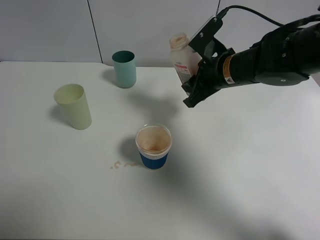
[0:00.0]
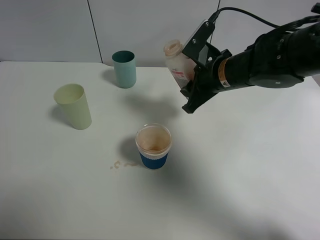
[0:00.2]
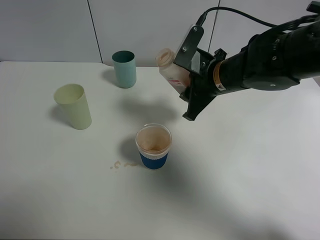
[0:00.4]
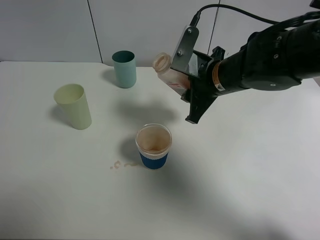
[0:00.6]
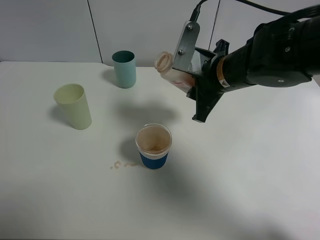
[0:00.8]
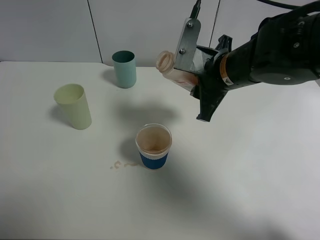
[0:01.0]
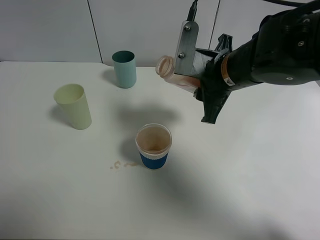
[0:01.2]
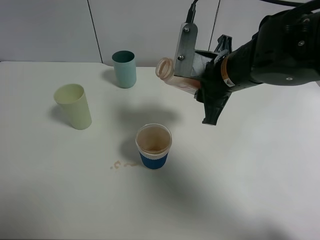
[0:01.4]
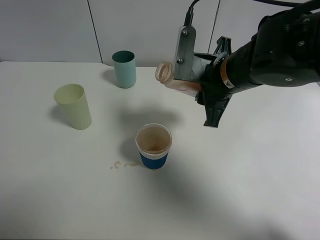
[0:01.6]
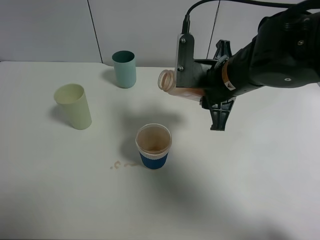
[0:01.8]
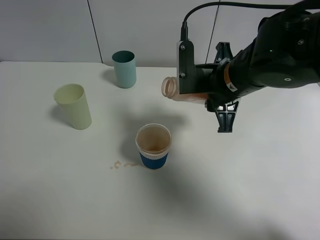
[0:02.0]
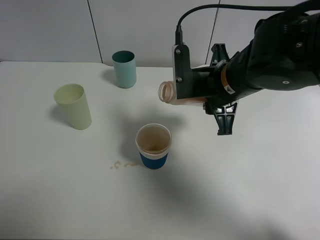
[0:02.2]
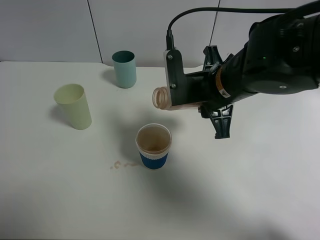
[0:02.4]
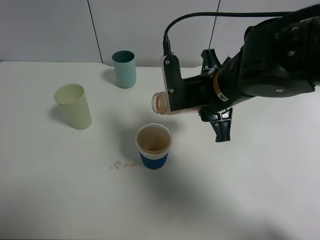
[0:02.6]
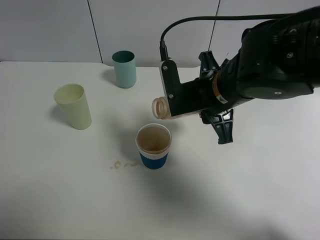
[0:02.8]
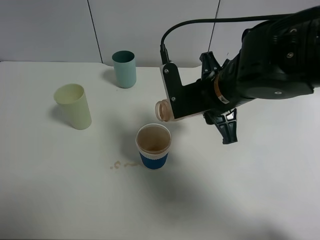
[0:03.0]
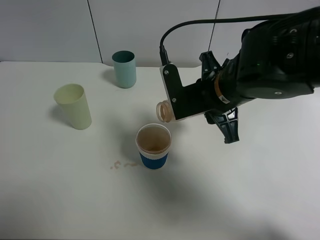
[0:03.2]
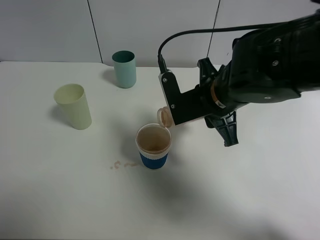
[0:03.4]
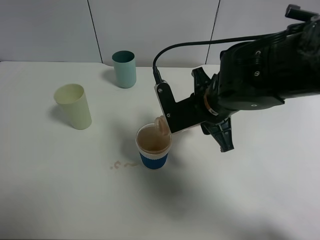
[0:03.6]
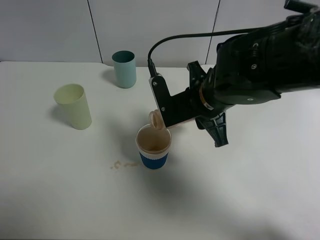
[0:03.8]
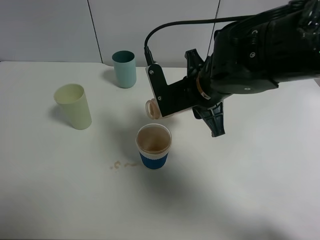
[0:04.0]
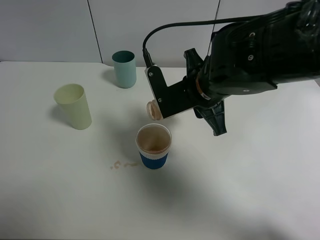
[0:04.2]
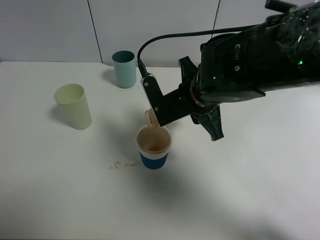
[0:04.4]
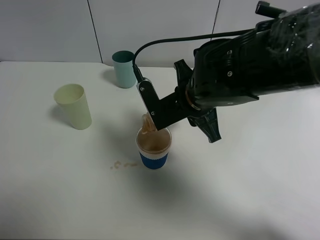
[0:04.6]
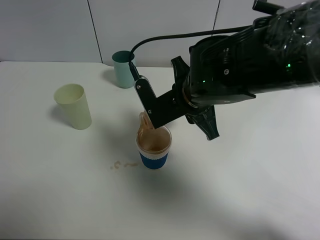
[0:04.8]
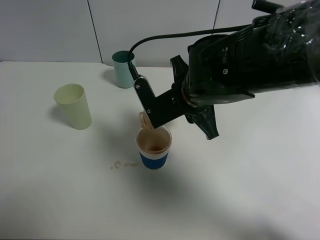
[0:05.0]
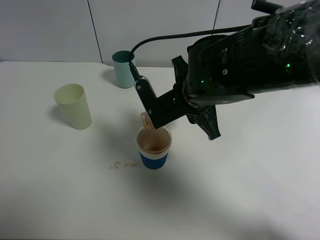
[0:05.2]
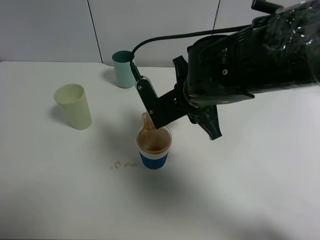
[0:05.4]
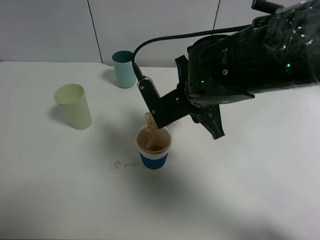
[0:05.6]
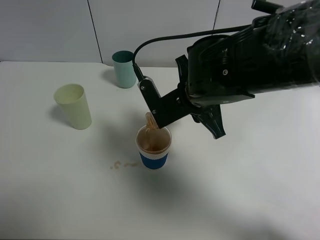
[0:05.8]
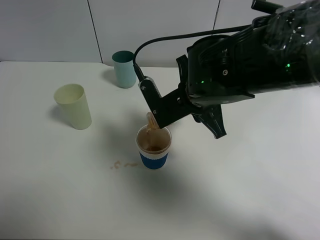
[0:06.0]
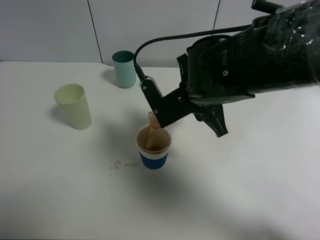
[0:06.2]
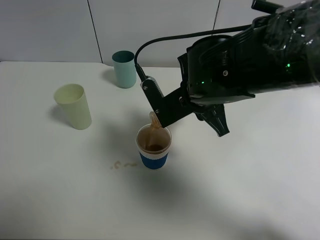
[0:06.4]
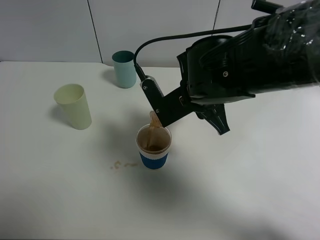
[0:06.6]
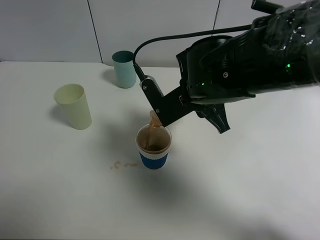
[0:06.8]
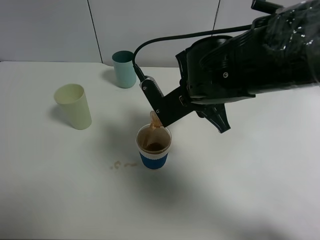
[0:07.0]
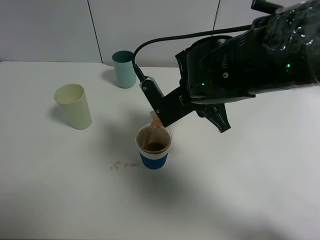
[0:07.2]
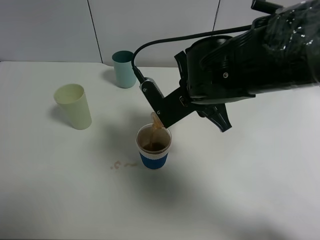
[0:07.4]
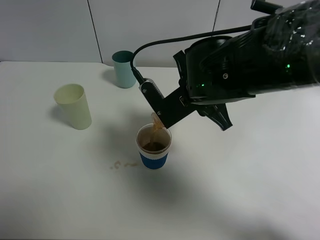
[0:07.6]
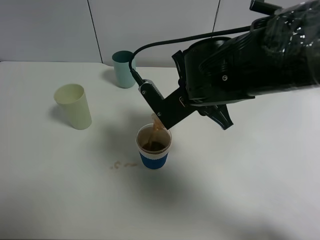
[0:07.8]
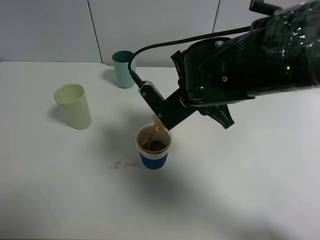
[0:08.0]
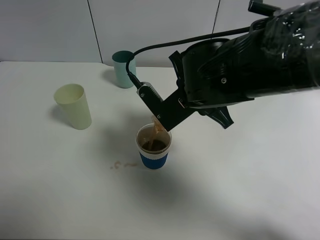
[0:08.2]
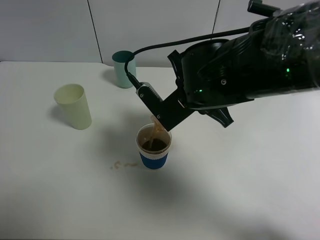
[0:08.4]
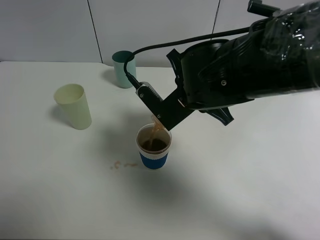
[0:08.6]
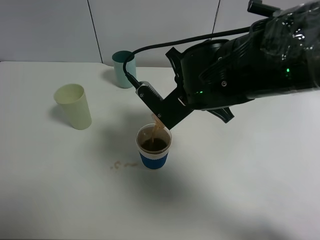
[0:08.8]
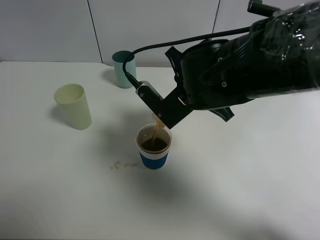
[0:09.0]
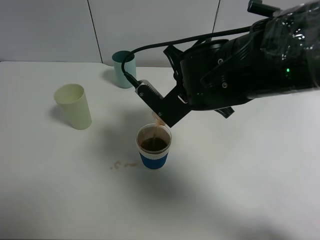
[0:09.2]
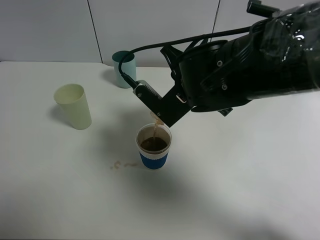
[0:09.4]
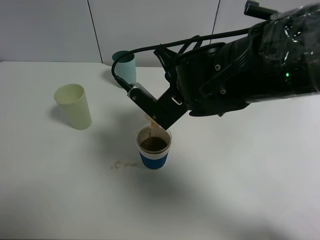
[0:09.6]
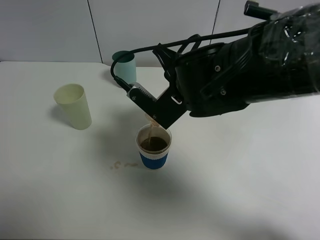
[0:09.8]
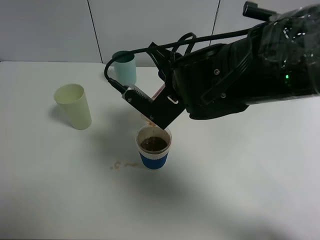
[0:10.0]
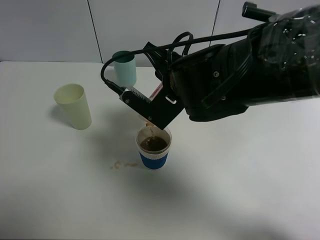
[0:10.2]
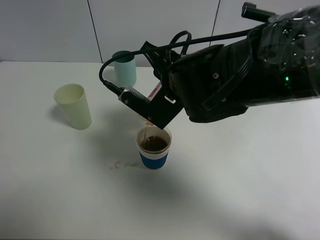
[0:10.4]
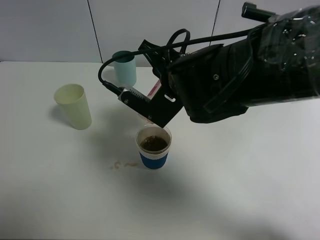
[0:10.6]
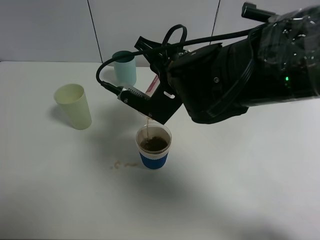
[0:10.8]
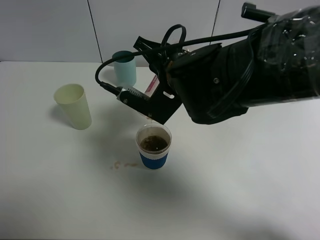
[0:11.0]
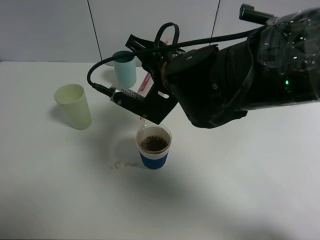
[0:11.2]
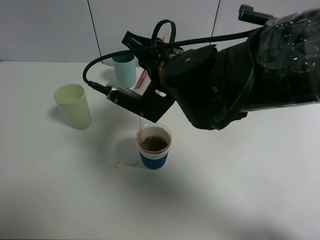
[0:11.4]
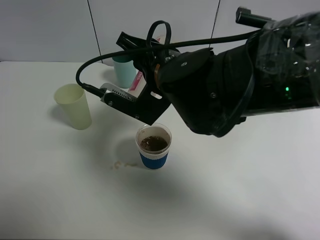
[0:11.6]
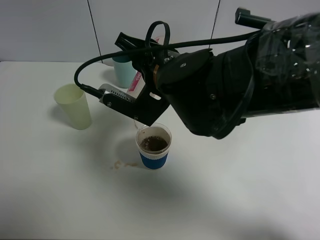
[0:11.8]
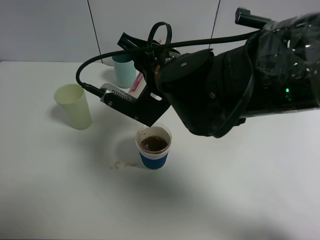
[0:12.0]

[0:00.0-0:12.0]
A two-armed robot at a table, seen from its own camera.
Task of the whole recording: use a clamp to hold the bottle of the drink, pour the beverage into a random cup, then clamp the cup containing the drink and pour the drink into another random cup.
0:00.0 to 0:01.6: The right gripper shifts some 5 cm backward.
0:03.0 to 0:06.0: There are only small adjustments of the grippers.
0:06.0 to 0:09.0: The grippers move only a little.
0:09.0 to 0:10.4: The grippers move only a little.
0:10.4 to 0:12.0: The grippers make only small movements.

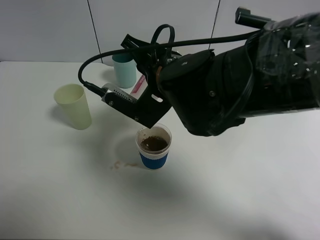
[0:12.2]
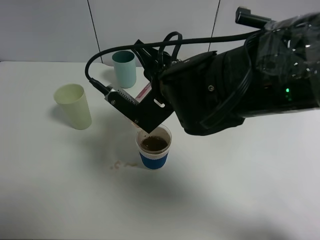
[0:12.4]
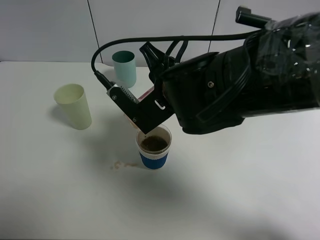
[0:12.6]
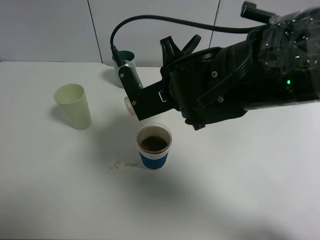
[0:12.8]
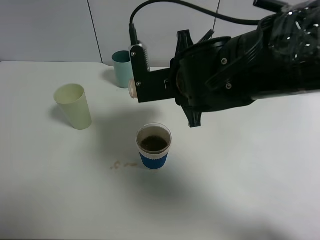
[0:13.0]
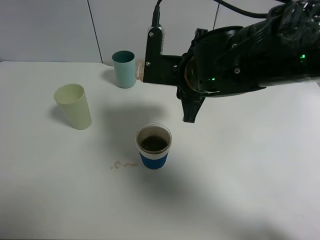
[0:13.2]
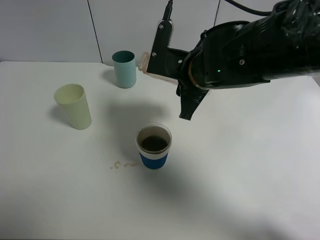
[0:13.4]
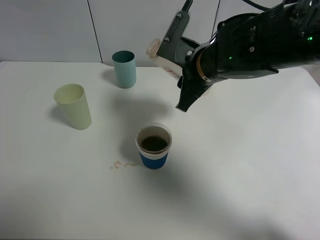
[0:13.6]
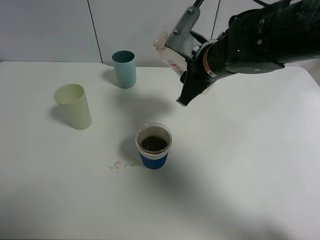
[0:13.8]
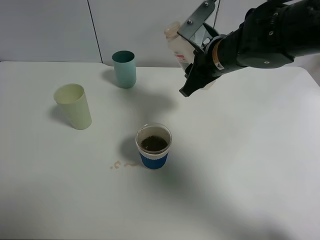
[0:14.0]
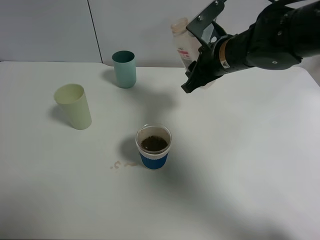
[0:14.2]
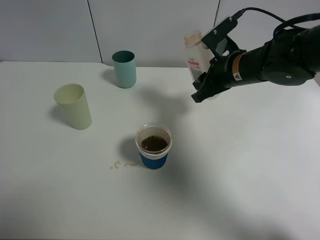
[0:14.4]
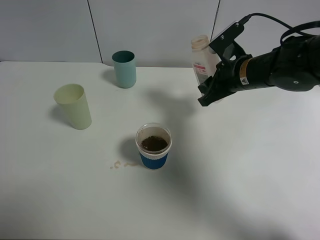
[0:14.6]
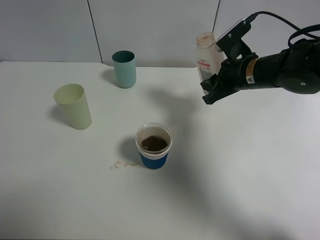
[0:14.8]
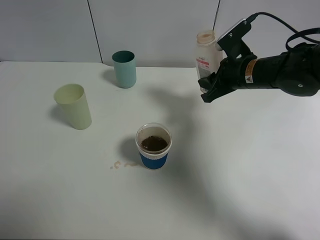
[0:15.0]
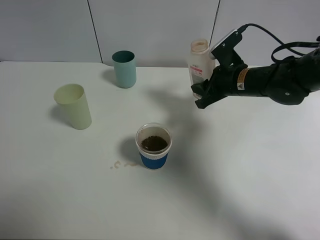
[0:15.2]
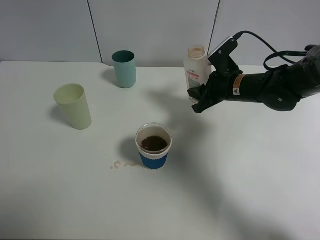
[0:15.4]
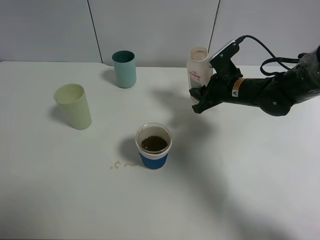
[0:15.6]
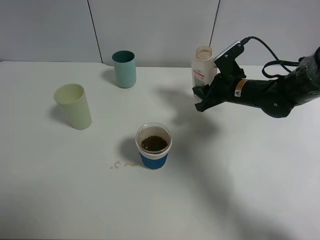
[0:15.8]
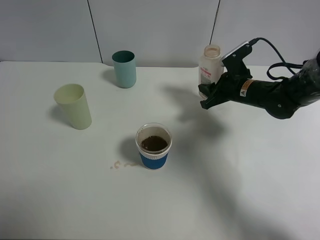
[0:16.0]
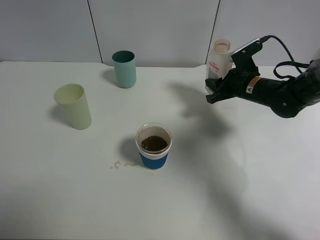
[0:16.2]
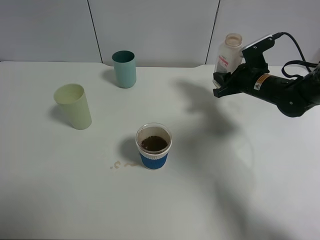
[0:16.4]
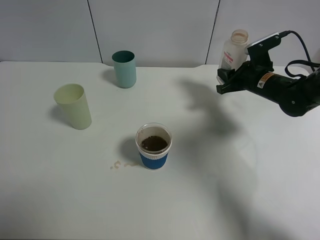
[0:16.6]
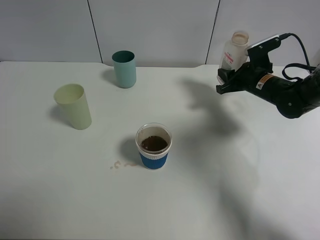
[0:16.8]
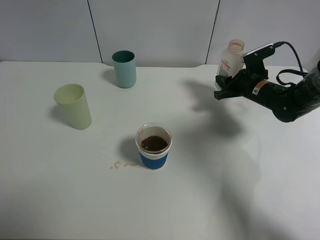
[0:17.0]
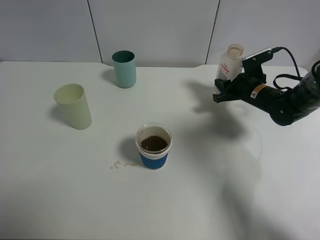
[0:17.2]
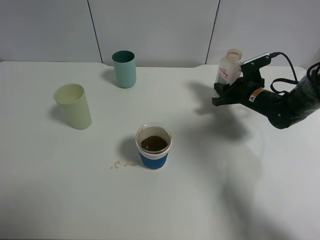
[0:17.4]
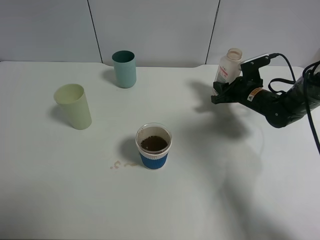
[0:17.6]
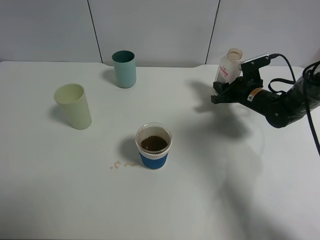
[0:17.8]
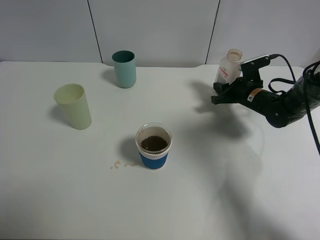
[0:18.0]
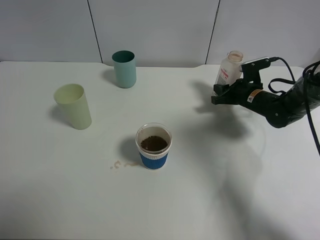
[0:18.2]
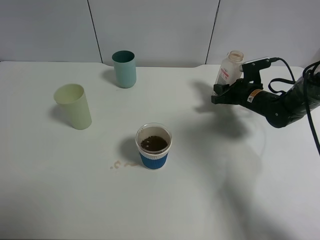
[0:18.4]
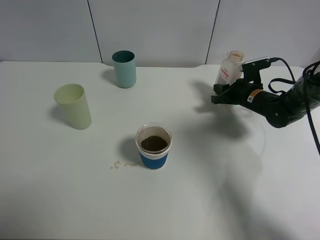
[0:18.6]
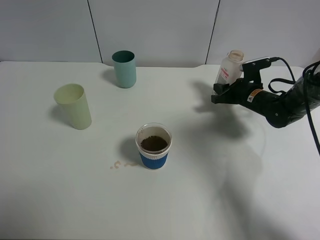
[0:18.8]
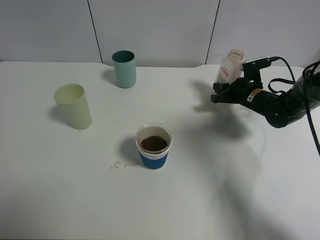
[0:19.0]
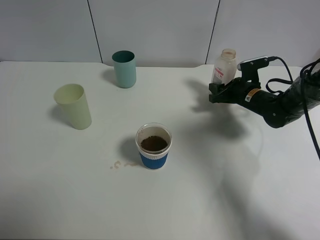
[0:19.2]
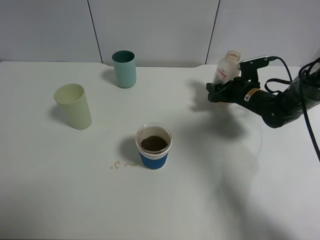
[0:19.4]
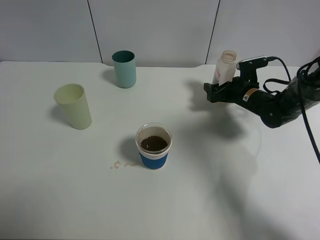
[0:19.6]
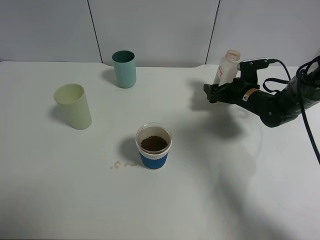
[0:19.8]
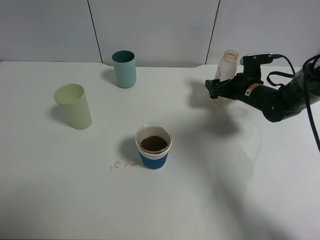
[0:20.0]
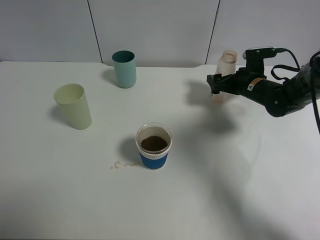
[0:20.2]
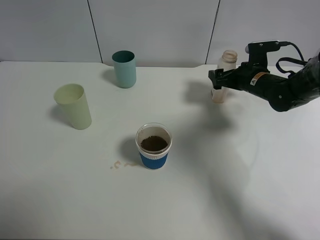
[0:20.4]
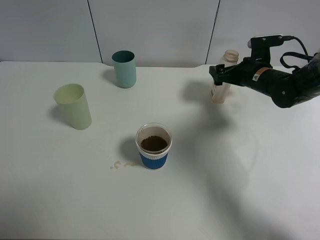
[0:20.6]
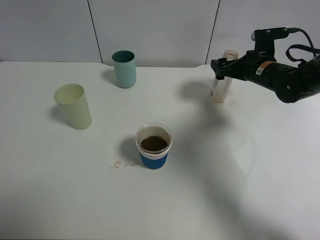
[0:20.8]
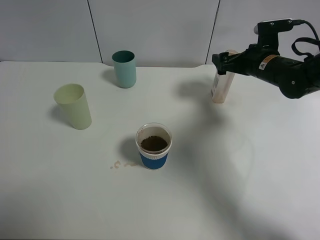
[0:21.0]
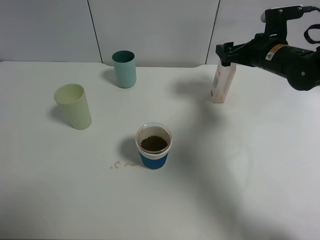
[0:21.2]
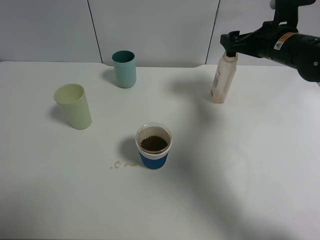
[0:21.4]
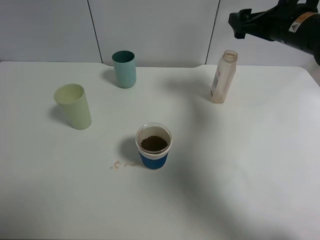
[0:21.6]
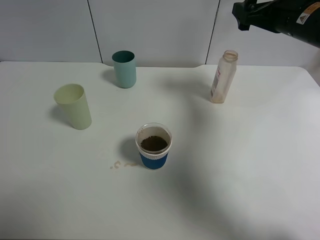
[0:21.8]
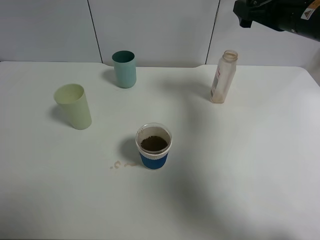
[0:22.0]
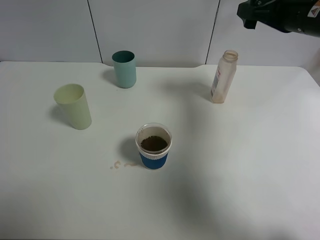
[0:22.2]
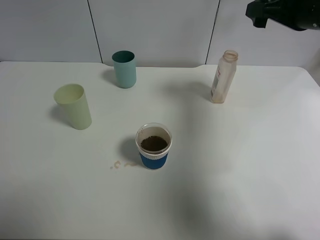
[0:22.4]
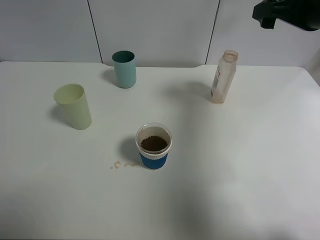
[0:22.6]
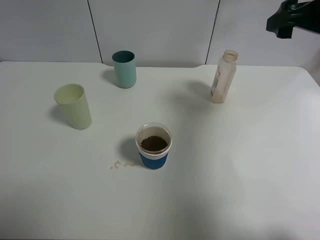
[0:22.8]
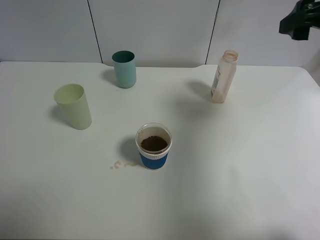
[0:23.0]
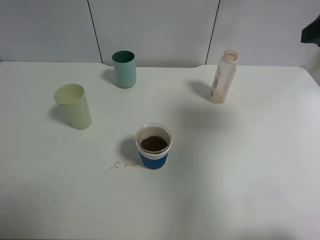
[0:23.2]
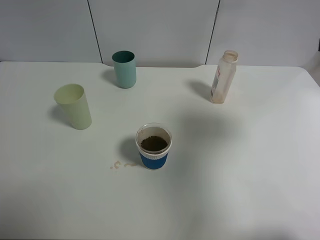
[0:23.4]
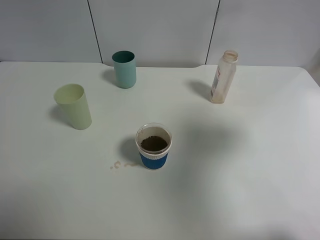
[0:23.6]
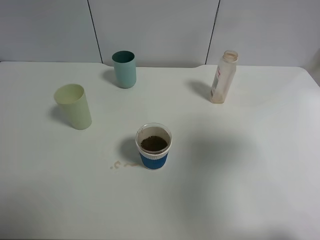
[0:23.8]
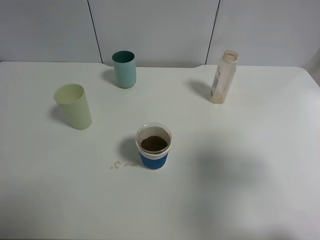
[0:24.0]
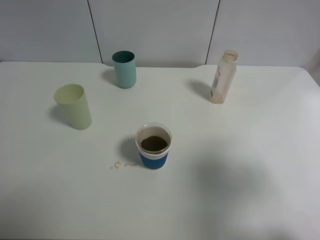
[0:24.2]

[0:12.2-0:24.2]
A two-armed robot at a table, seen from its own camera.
Task of the whole recording: use a clamp to hold the bottle of the drink, pour the beverage into a random cup, then clamp the cup containing the drink and pour the drink into another random cup.
Step, 0:13.0 to 0:20.0: Place the drink bottle on the table with right gripper.
0:12.2 to 0:13.8: The right gripper travels to the right and forward by approximately 10 cm.
0:13.8 to 0:15.2: The right gripper heads to the right and downward, covering roughly 10 cm.
0:15.2 to 0:16.6: The right gripper goes roughly 5 cm to the right.
0:16.6 to 0:18.2: The right gripper heads downward, covering some 5 cm.
0:18.2 to 0:19.8: The right gripper opens.
0:19.8 to 0:21.2: The right gripper travels upward by about 15 cm.
0:21.2 to 0:22.6: The right gripper shifts some 15 cm upward and backward.
0:22.6 to 0:24.2: The right gripper is displaced backward by approximately 25 cm.
